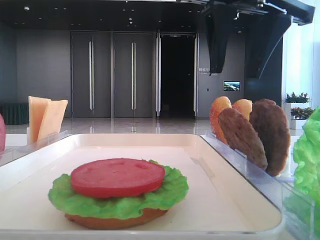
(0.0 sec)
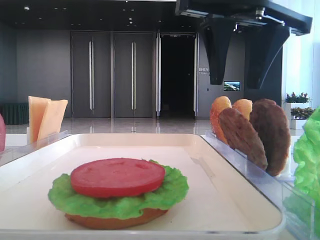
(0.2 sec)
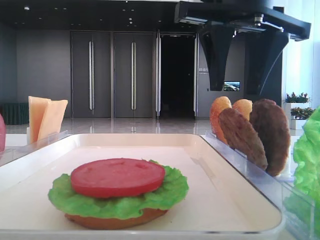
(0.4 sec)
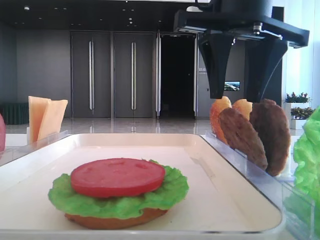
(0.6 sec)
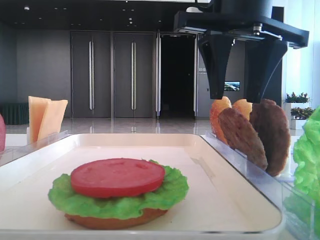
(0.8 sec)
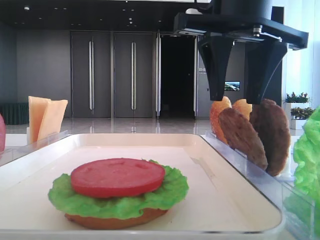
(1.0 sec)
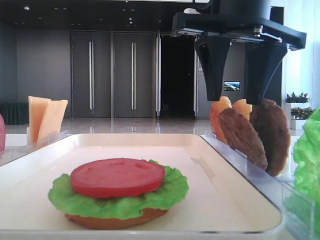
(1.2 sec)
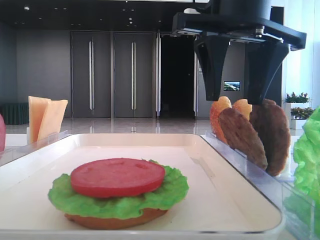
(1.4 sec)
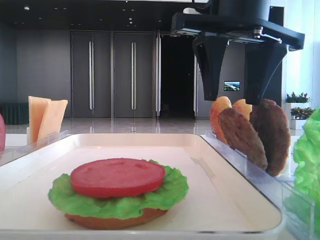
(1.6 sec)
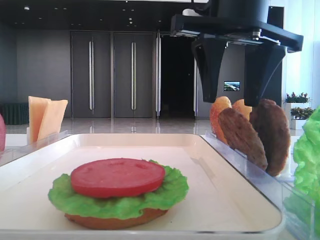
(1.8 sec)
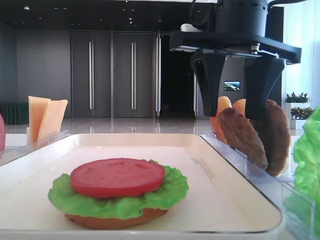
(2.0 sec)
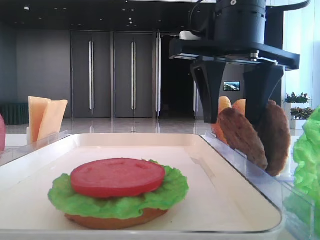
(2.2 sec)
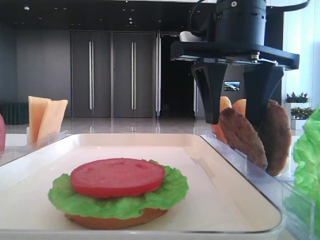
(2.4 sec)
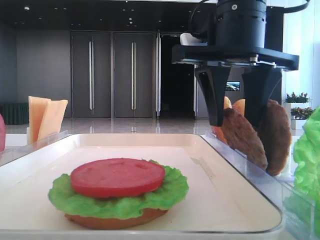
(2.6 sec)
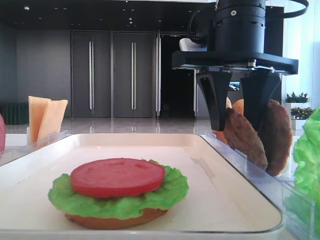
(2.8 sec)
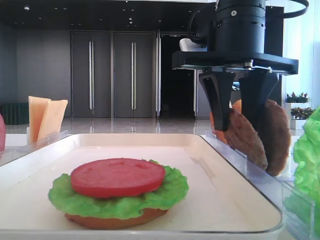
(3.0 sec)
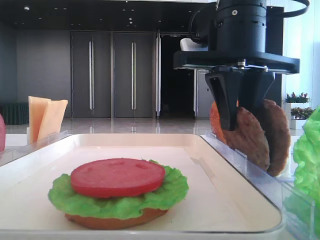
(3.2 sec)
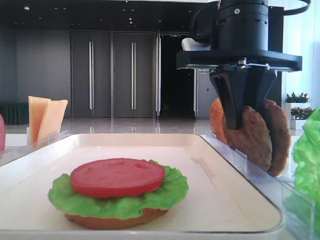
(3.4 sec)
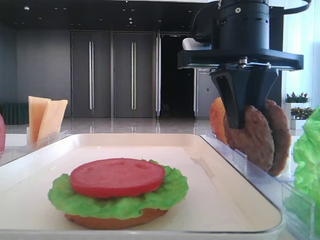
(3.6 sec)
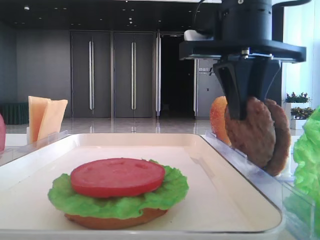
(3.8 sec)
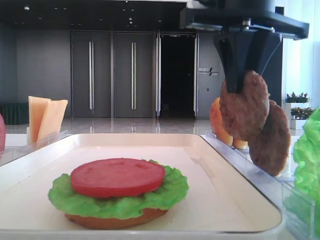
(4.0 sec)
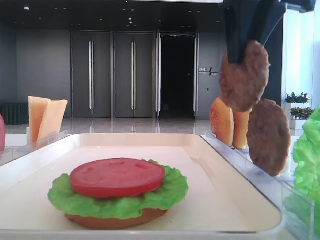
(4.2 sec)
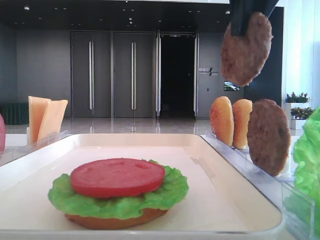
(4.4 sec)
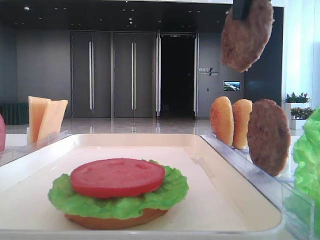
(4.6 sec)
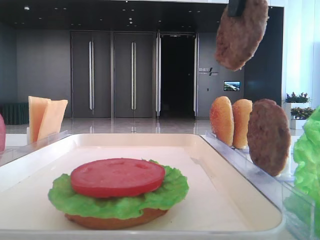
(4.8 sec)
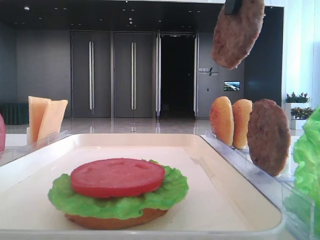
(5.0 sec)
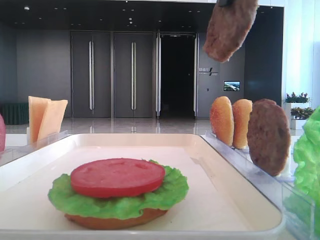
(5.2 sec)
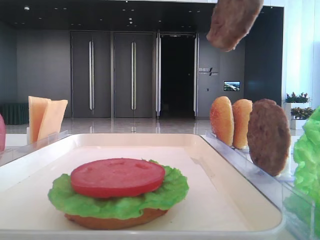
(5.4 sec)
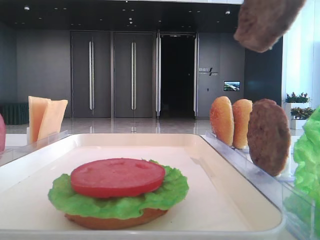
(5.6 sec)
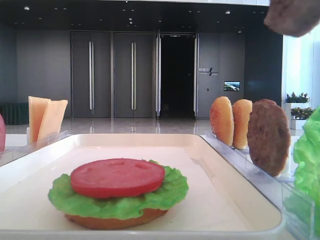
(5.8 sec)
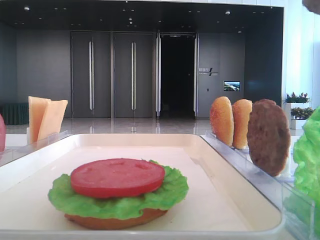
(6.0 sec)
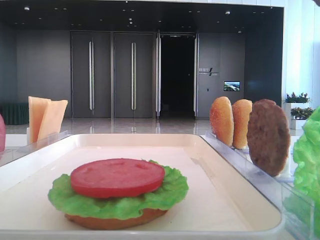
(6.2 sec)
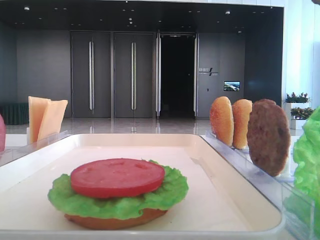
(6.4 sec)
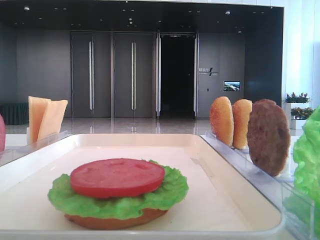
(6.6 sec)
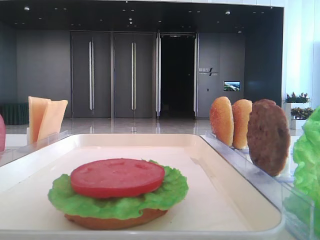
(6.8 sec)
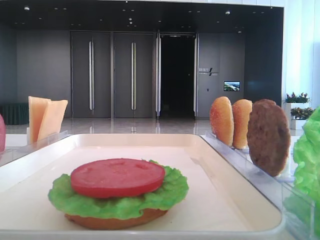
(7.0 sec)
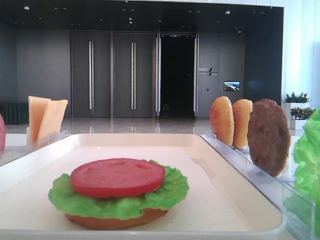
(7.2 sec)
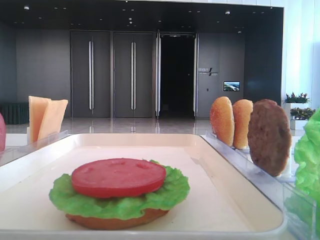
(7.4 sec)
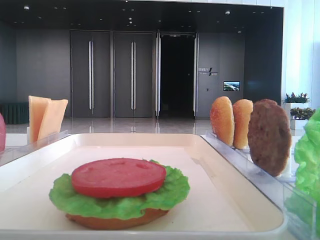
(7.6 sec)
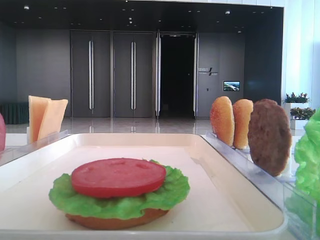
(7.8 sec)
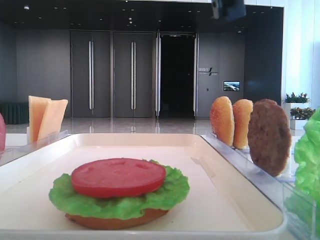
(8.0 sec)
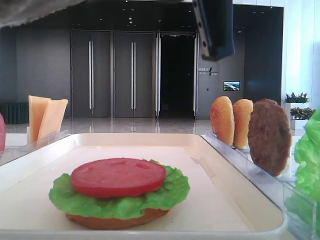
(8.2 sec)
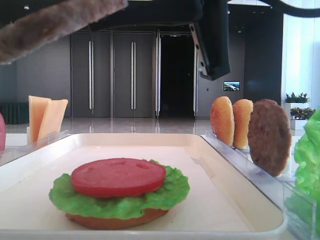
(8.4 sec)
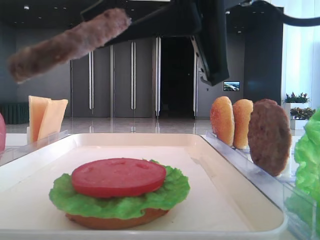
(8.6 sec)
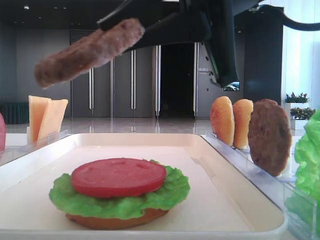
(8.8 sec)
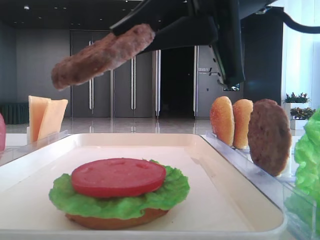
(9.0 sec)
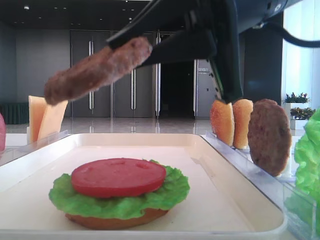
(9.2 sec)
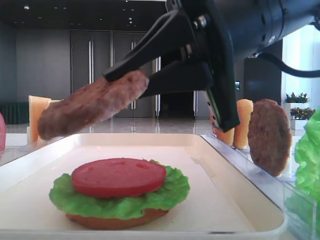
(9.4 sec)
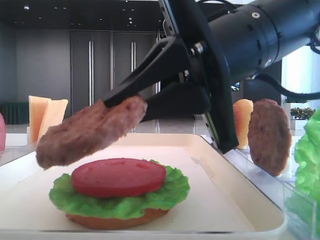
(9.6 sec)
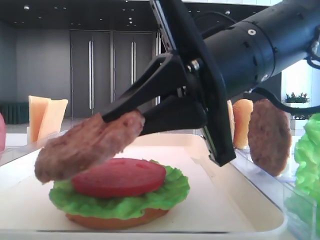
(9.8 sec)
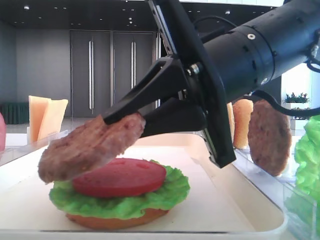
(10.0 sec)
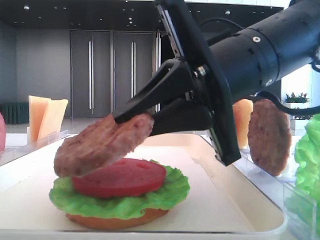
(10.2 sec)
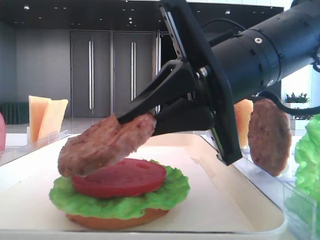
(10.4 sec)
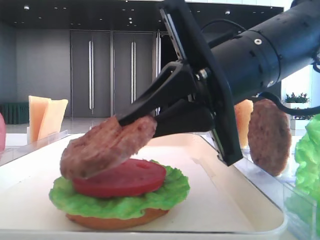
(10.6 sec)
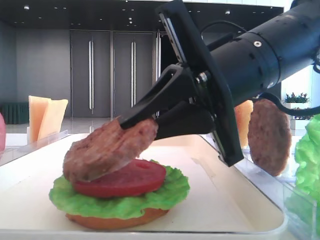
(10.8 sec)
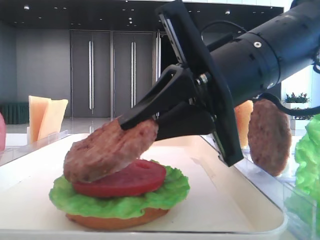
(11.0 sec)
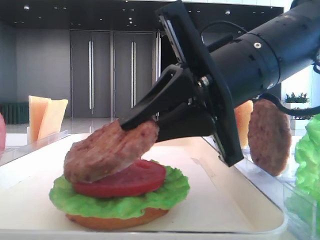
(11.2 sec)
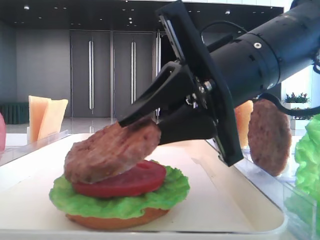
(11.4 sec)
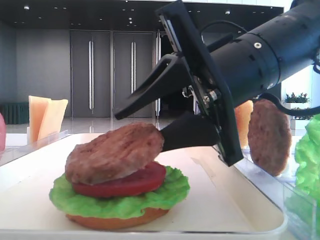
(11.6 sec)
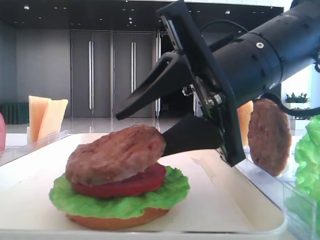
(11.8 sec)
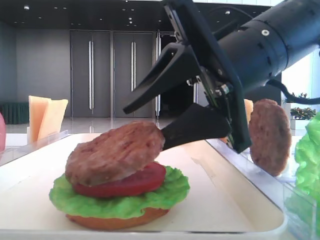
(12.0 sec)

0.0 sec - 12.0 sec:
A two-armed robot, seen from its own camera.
Step, 0.0 sec - 3.6 sec: Grab the patty with the right hand.
0.0 sec - 1.6 sec: The grippers move only a little.
1.6 sec - 3.0 sec: The grippers make only small movements.
3.0 sec - 4.4 sec: The right gripper travels upward by approximately 10 cm, and closes up.
4.4 sec - 6.0 sec: The right gripper heads backward and to the right, covering some 15 cm.
6.0 sec - 7.6 sec: The right gripper is displaced to the left by some 5 cm.
7.6 sec - 9.0 sec: The right gripper heads downward and forward, covering some 15 cm.
9.0 sec - 10.4 sec: The right gripper goes about 5 cm downward.
10.4 sec - 12.0 sec: The right gripper opens up.

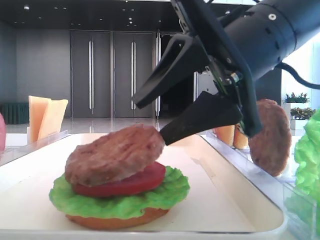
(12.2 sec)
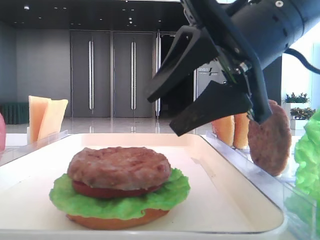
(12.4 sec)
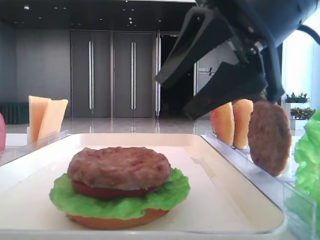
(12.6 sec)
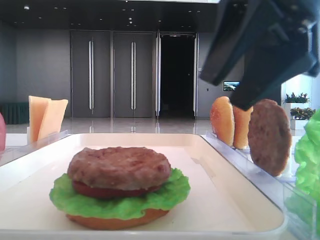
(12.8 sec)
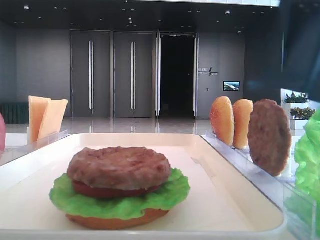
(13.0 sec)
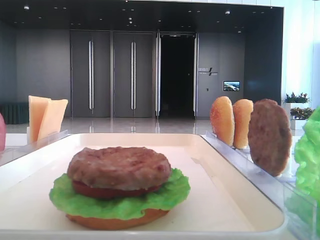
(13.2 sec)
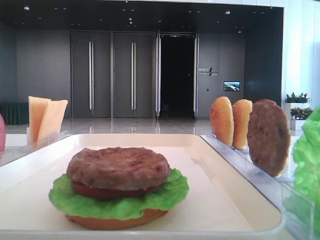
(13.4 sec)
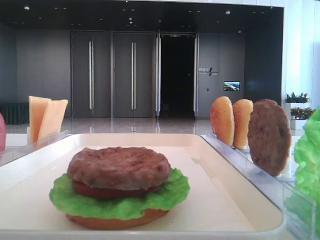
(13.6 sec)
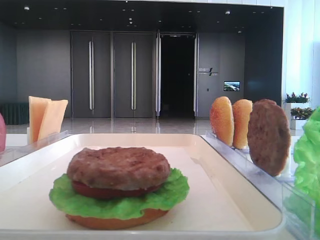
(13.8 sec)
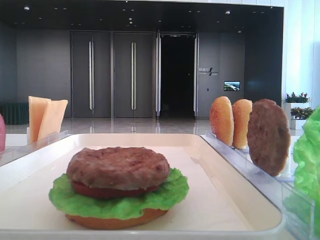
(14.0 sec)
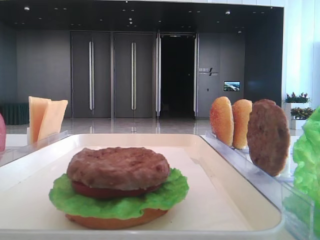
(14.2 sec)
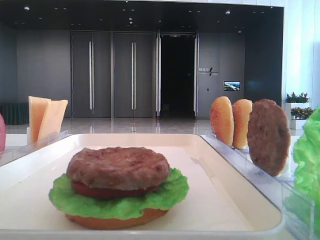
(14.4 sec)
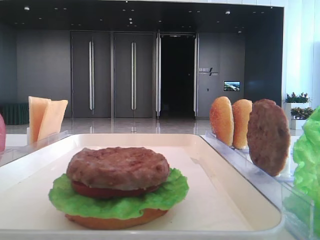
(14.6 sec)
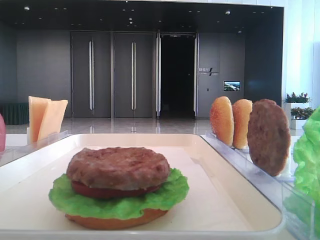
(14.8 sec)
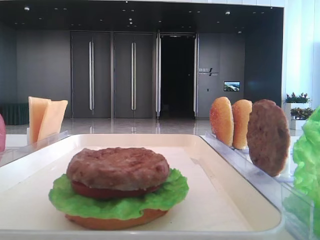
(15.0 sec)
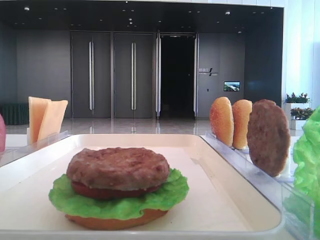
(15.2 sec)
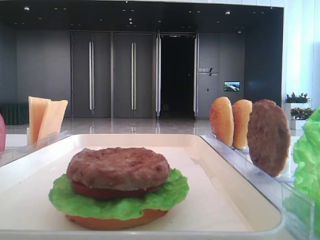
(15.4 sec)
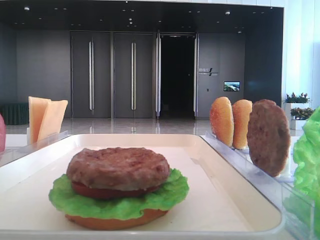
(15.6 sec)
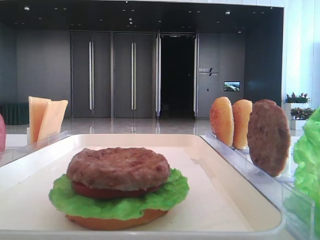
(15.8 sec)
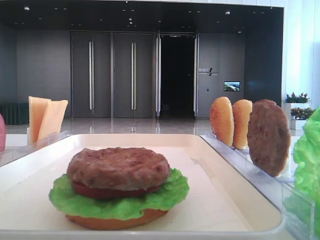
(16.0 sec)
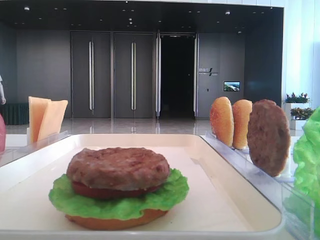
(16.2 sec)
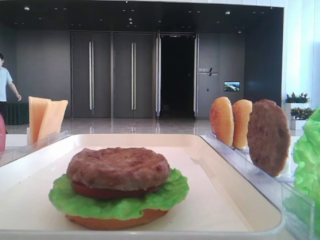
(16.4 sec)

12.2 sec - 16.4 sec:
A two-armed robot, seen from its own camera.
12.2 sec - 13.6 sec: The right gripper moves to the right and upward, roughly 15 cm.
13.6 sec - 15.0 sec: The right gripper heads backward, to the right and upward, covering approximately 20 cm.
